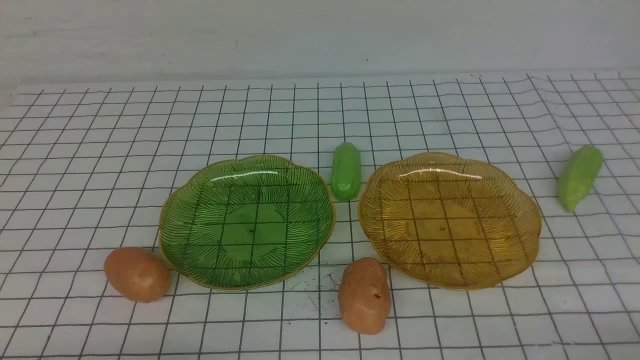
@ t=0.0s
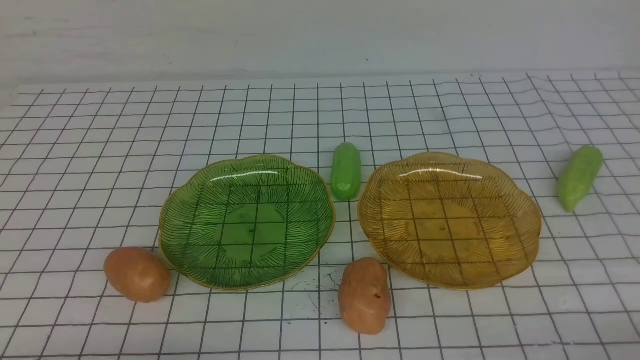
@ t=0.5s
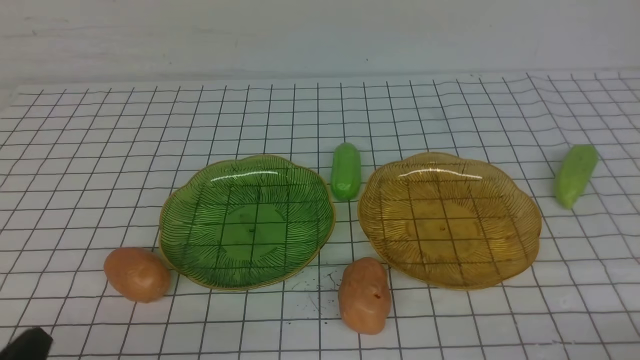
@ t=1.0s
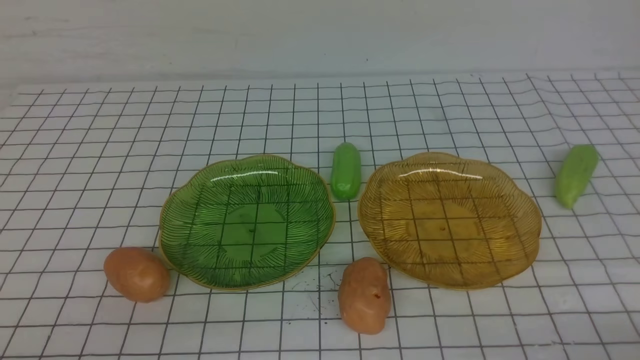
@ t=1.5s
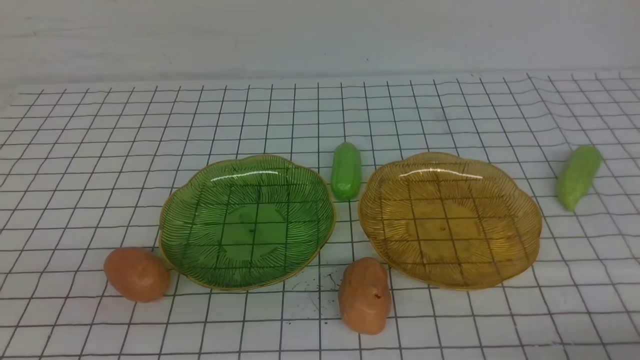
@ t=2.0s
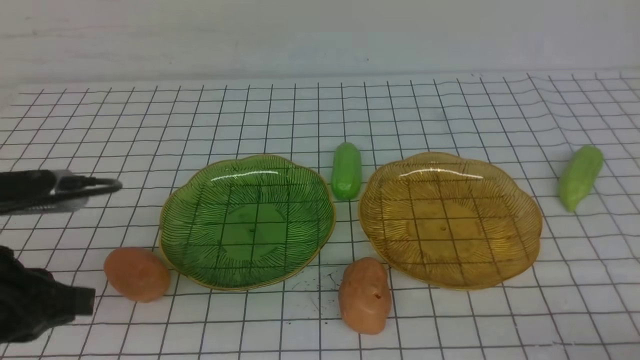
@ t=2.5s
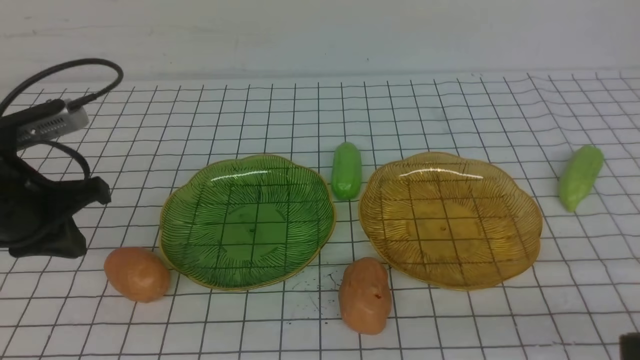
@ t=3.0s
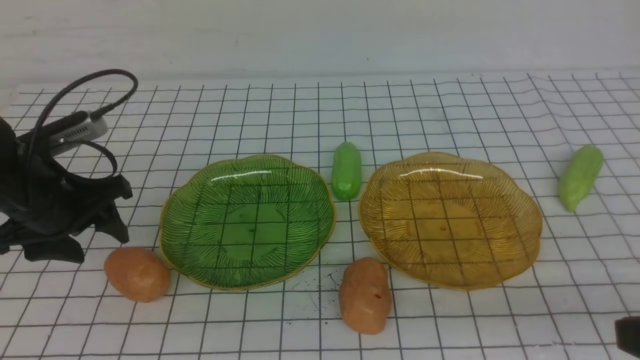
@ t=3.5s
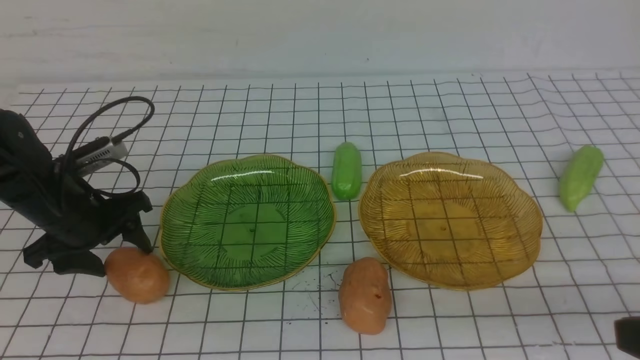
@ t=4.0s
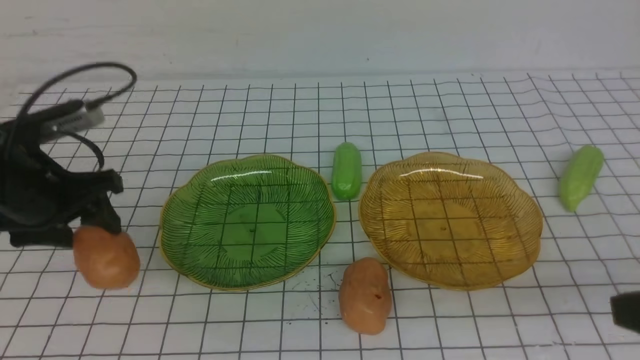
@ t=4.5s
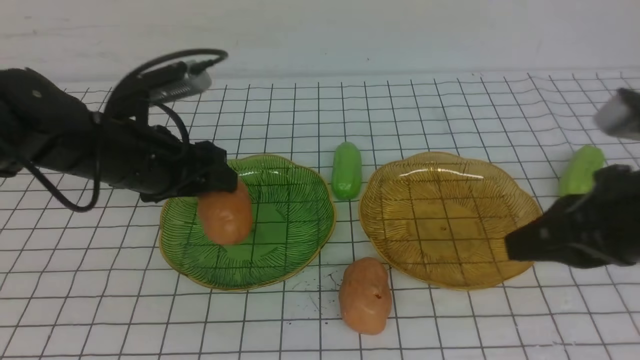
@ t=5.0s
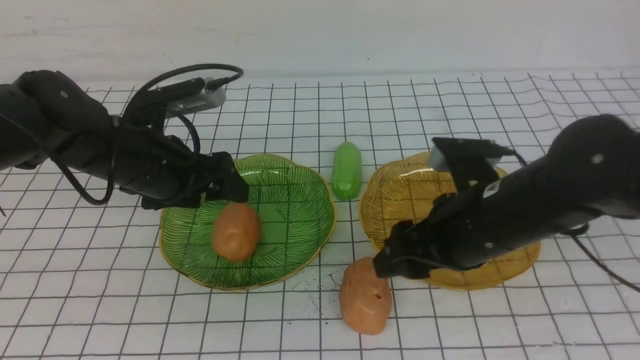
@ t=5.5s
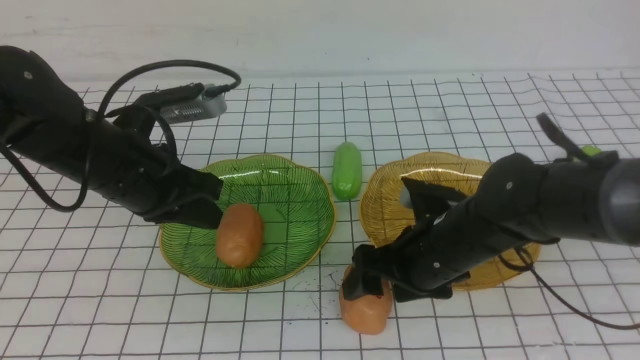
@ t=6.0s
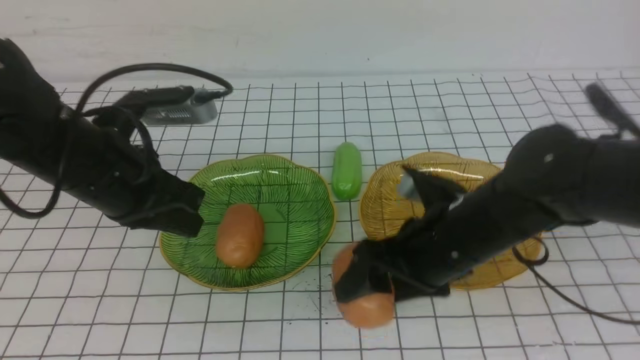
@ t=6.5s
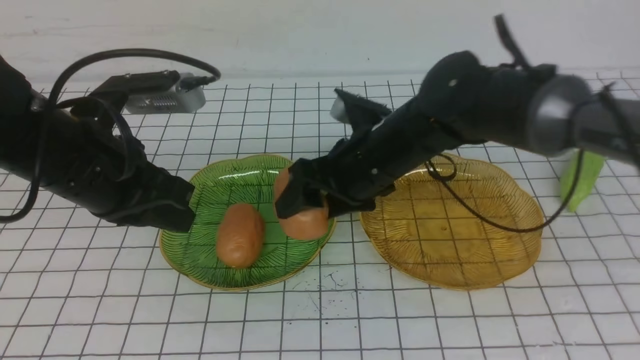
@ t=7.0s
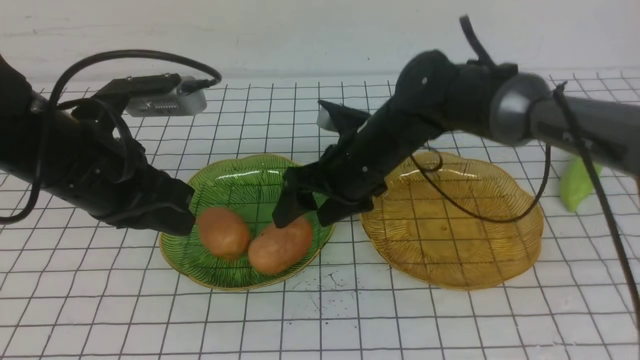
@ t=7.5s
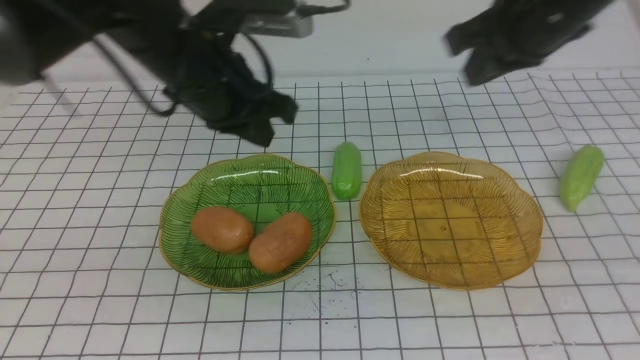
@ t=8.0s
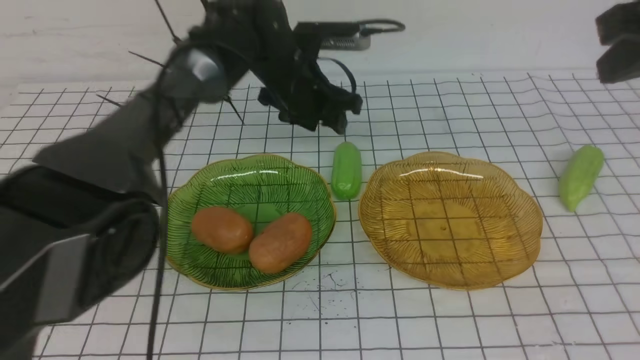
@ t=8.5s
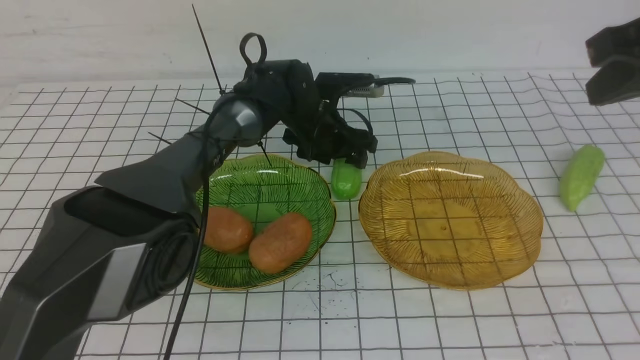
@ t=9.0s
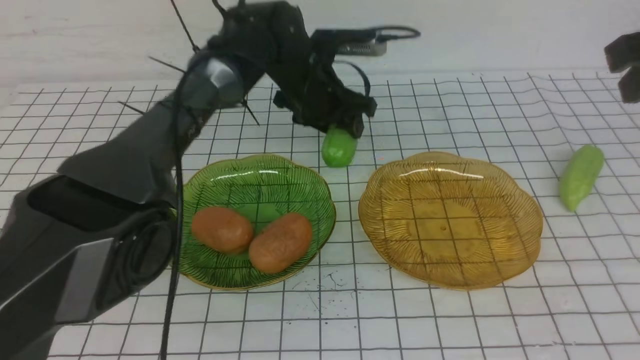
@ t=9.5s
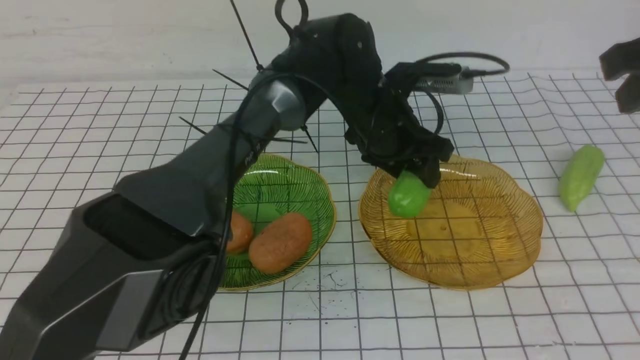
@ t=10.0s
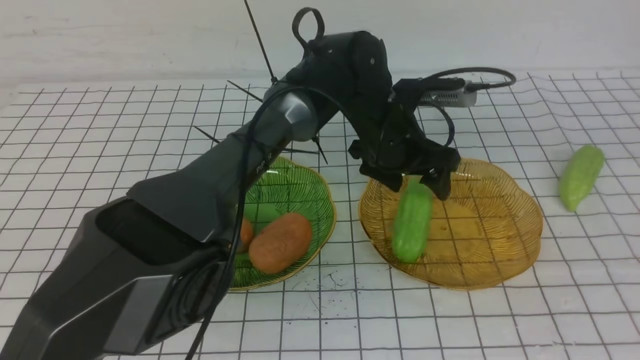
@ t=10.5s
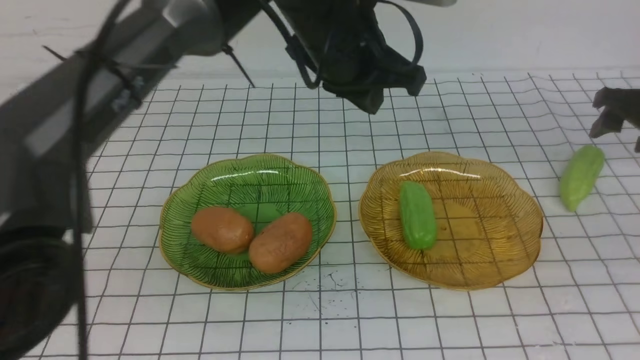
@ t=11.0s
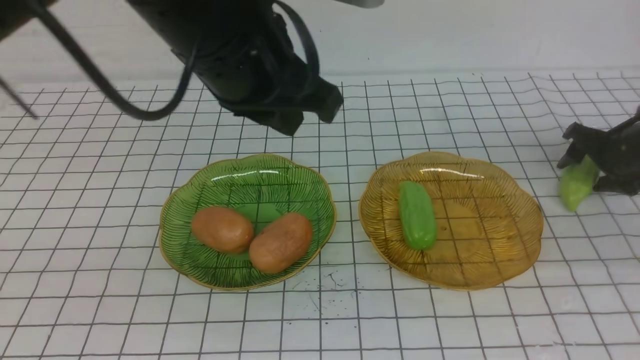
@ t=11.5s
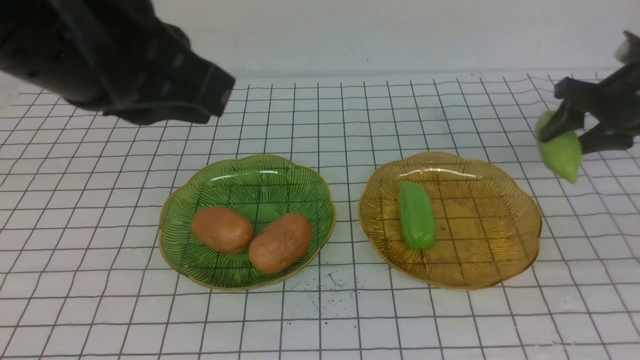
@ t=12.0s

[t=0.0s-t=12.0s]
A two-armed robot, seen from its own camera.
Step, t=0.0s to t=5.0s: Grab a potato with your left arm and put it on the left plate.
Step, t=5.5s to t=7.0s: Grab a potato with your right arm and put it on the left plate.
Step, t=7.5s to t=10.5s: use the left arm to grab a chayote and put it into the right plate.
t=2.0s to t=4.0s: The right gripper travels upward by approximately 10 cm, while the left gripper is displaced forward and downward by approximately 30 cm, and opens.
t=4.0s to t=6.0s: The right gripper is displaced forward, to the left and downward by about 30 cm, and opens its fingers, while the left gripper goes roughly 10 cm to the right and upward, and closes up.
t=6.0s to t=8.0s: The right gripper moves upward, some 20 cm, and closes. Meanwhile the left gripper heads to the right, upward and forward, covering about 10 cm.
t=8.0s to t=10.0s: The left gripper is displaced to the right and downward by roughly 20 cm, and opens; the right gripper travels to the right and backward by some 10 cm.
t=10.0s to t=12.0s: The right gripper goes roughly 20 cm downward and forward, and opens. The left gripper heads backward, upward and to the left, covering roughly 35 cm, and closes its fingers.

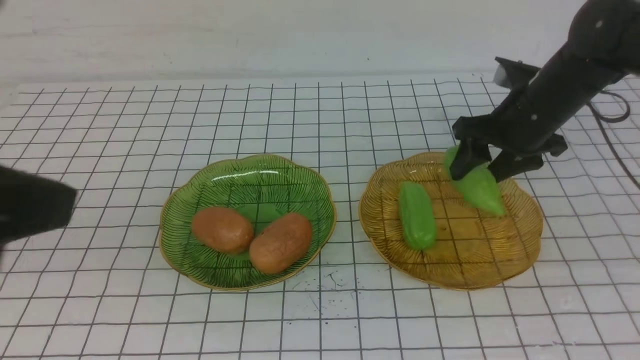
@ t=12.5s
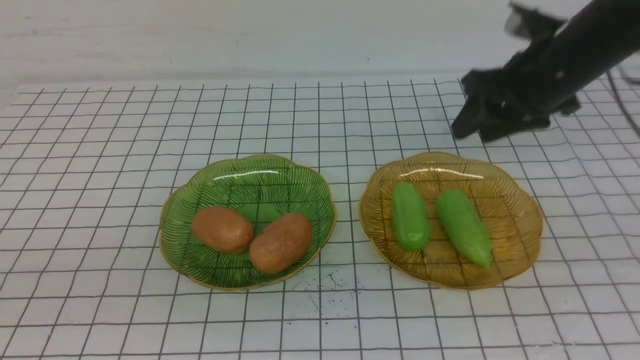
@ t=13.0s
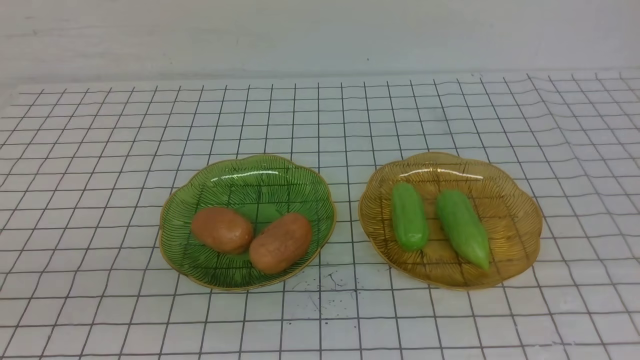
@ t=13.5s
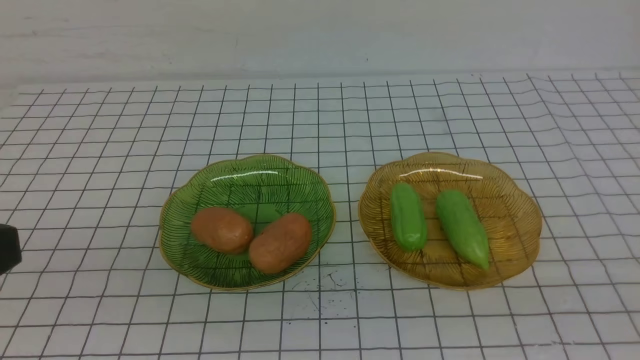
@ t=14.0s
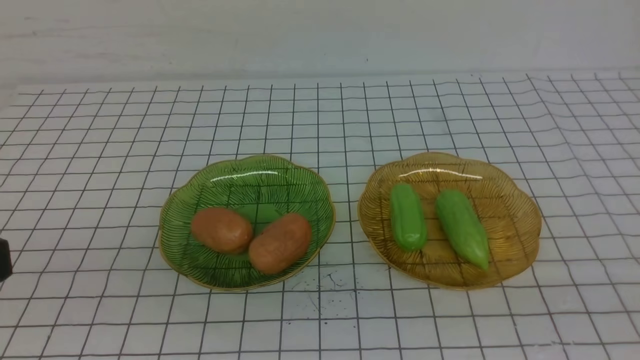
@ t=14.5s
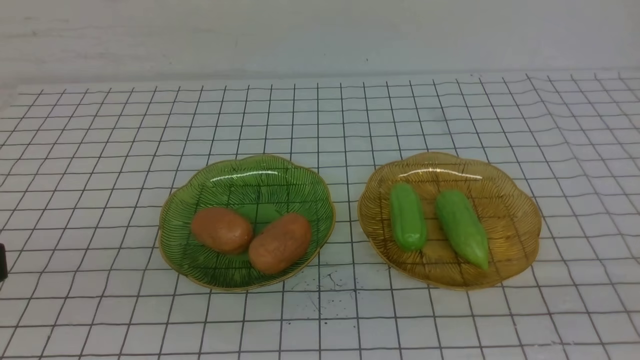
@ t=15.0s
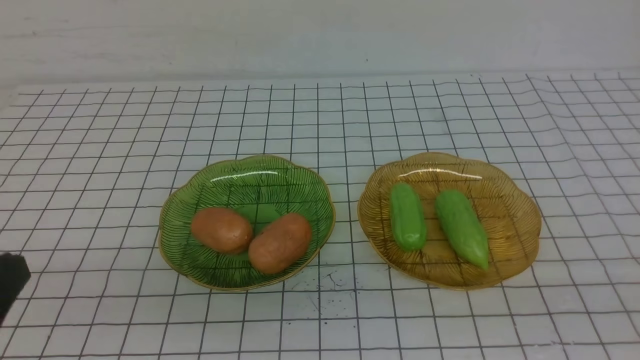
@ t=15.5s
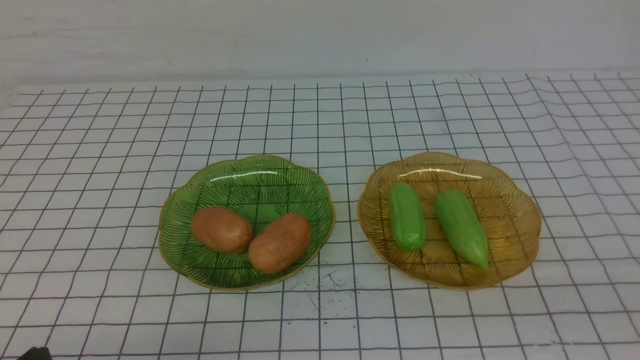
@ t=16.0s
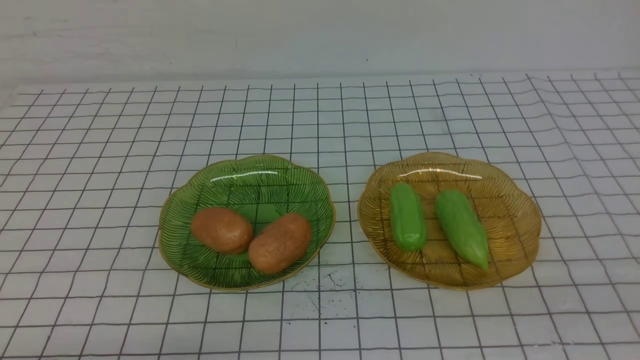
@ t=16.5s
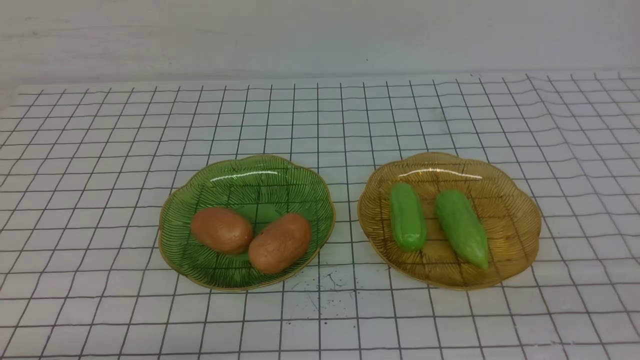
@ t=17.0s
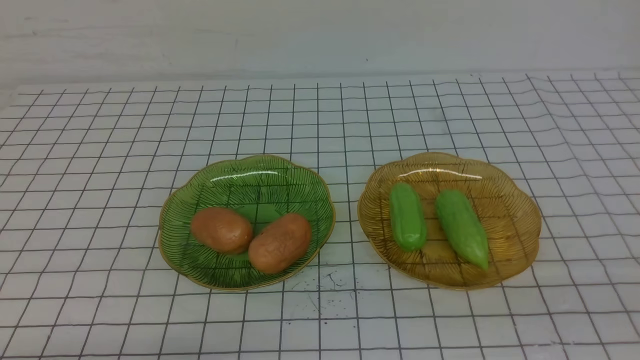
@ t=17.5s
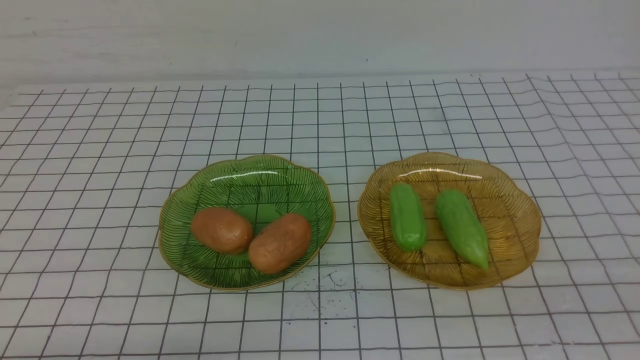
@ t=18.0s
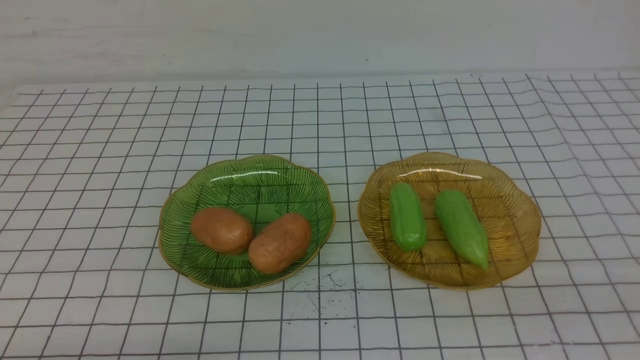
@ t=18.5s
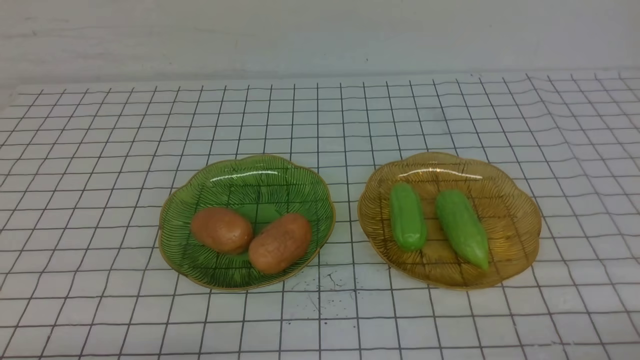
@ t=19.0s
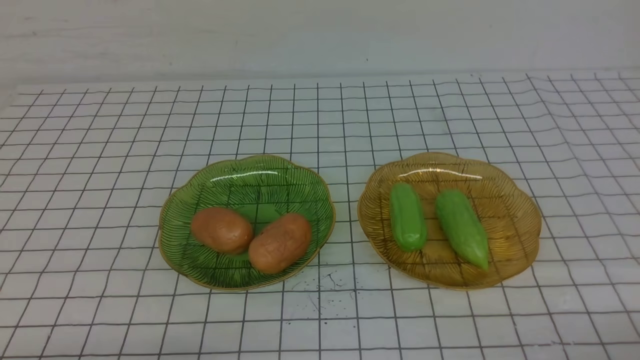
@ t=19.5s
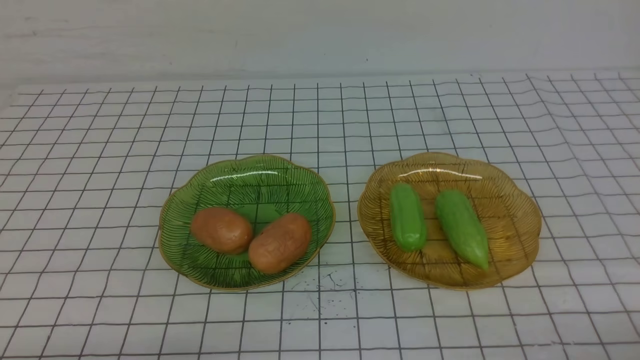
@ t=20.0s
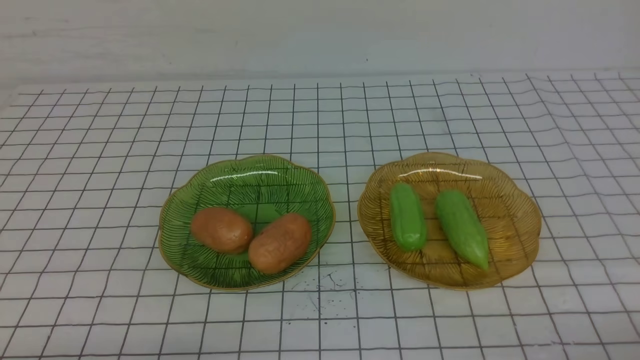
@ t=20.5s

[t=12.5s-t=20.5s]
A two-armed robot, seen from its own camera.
t=12.5s to t=14.5s: The left gripper travels downward by roughly 5 cm. The right gripper is displaced backward by approximately 40 cm, and closes.
